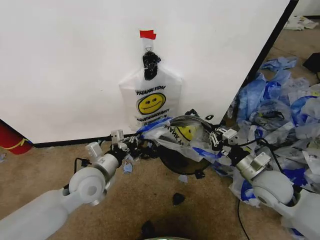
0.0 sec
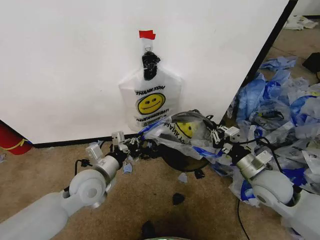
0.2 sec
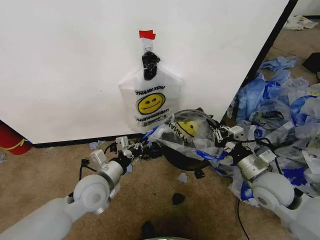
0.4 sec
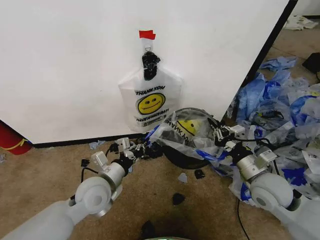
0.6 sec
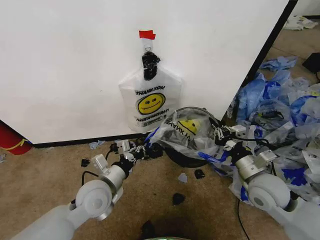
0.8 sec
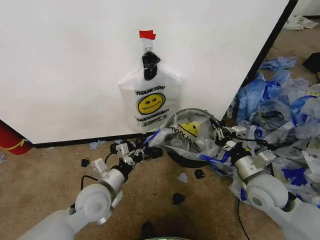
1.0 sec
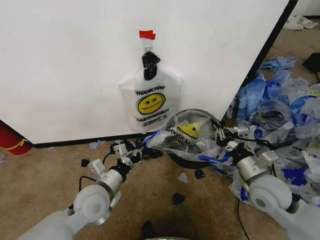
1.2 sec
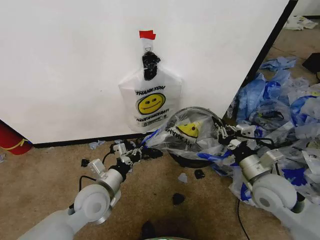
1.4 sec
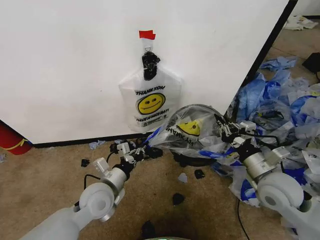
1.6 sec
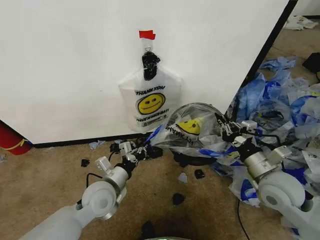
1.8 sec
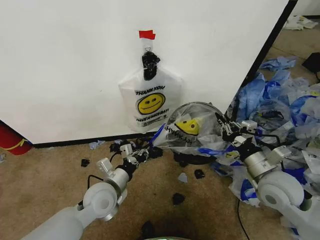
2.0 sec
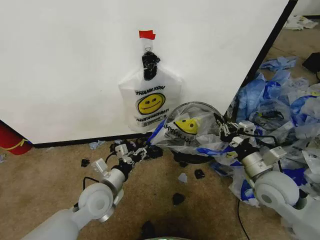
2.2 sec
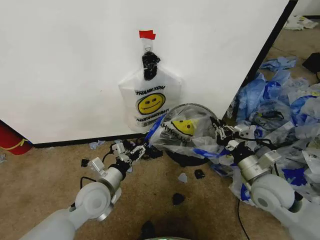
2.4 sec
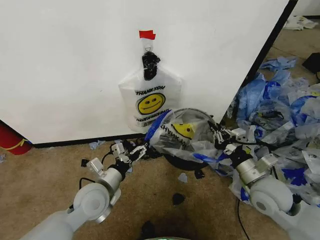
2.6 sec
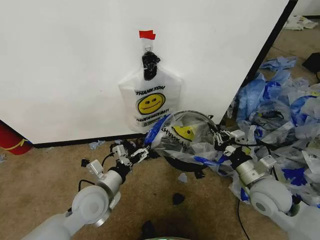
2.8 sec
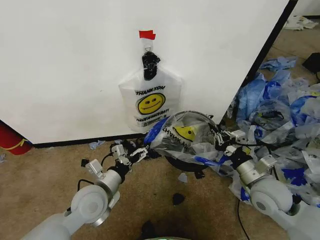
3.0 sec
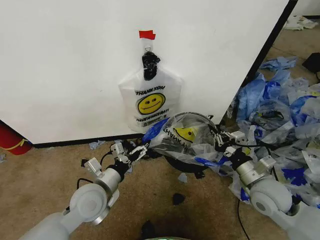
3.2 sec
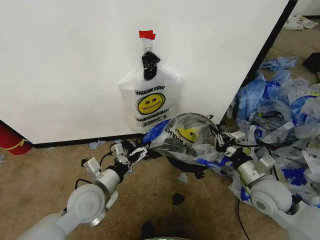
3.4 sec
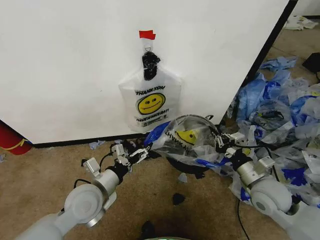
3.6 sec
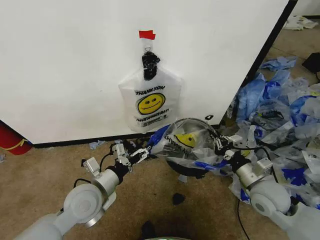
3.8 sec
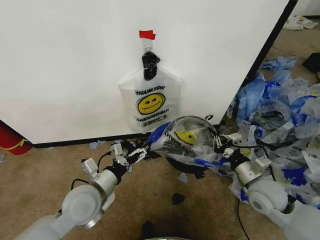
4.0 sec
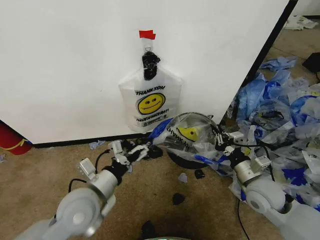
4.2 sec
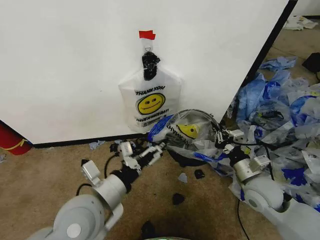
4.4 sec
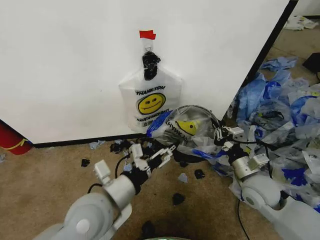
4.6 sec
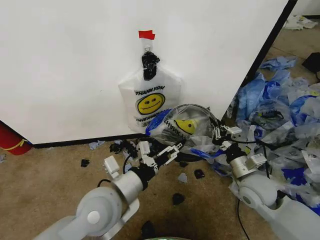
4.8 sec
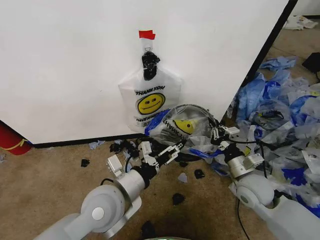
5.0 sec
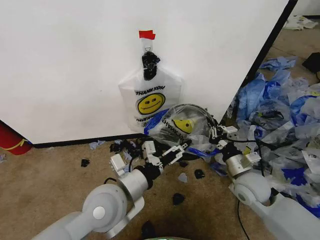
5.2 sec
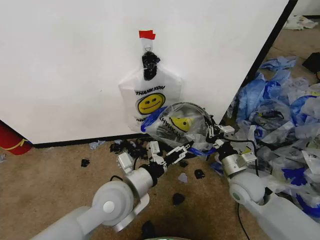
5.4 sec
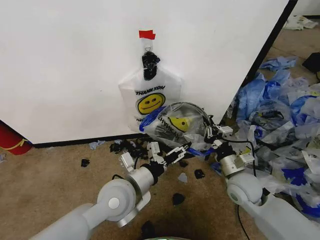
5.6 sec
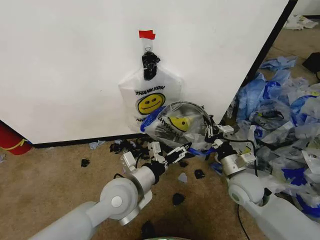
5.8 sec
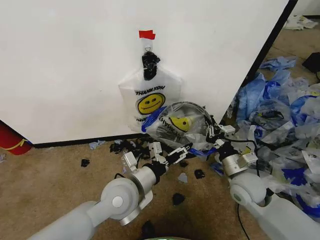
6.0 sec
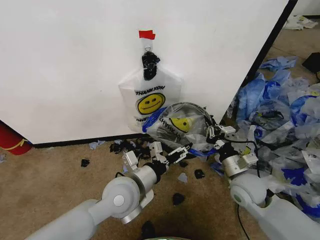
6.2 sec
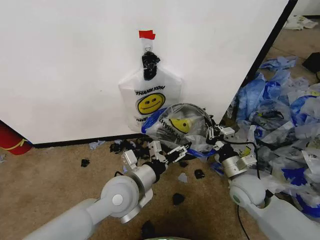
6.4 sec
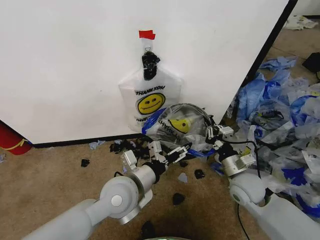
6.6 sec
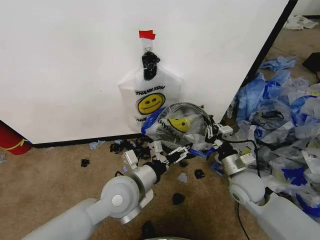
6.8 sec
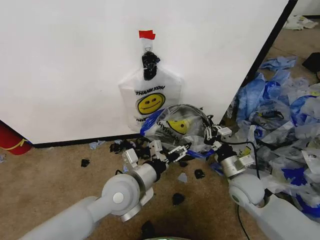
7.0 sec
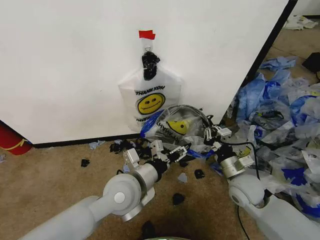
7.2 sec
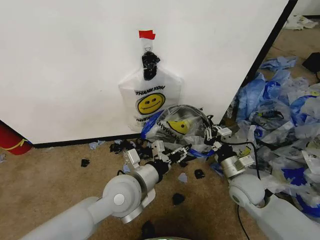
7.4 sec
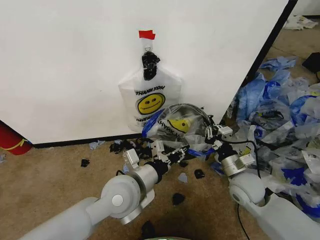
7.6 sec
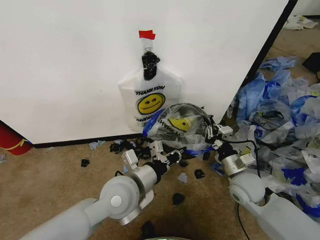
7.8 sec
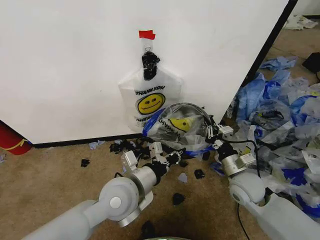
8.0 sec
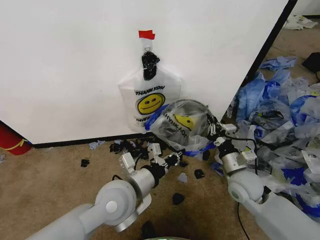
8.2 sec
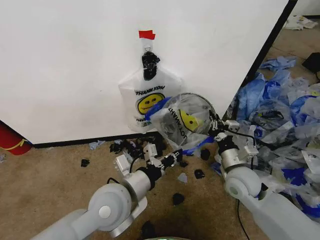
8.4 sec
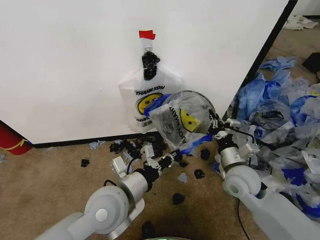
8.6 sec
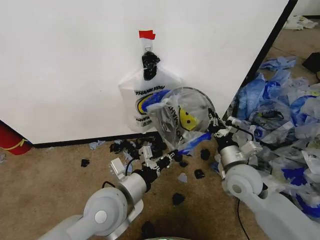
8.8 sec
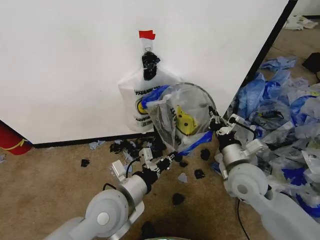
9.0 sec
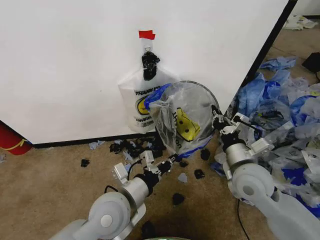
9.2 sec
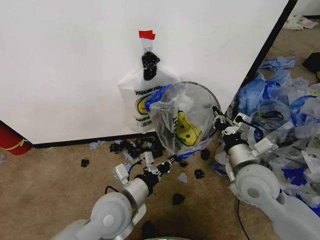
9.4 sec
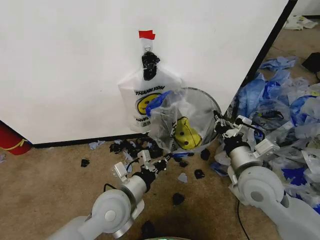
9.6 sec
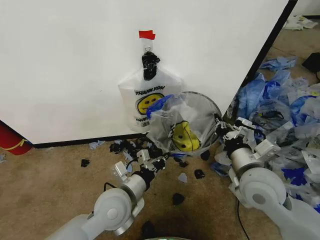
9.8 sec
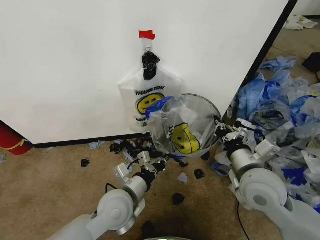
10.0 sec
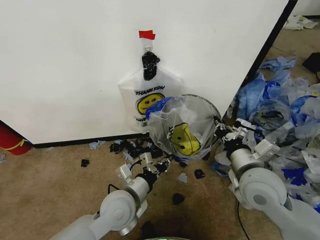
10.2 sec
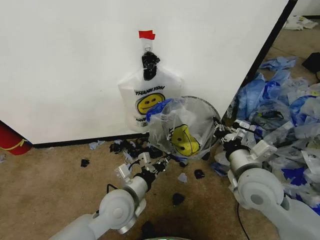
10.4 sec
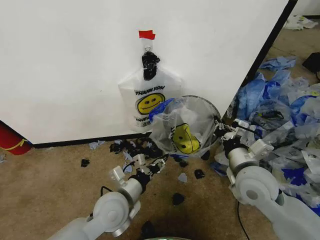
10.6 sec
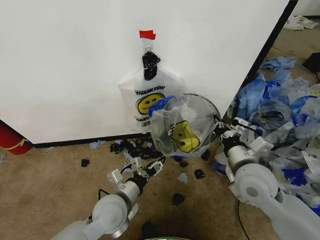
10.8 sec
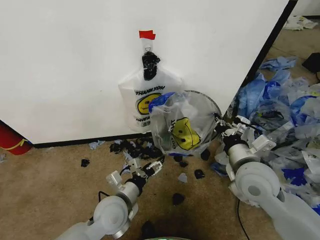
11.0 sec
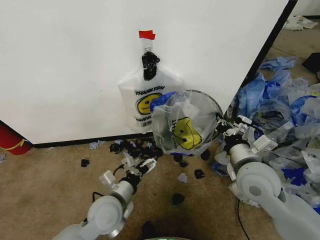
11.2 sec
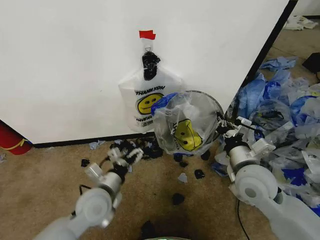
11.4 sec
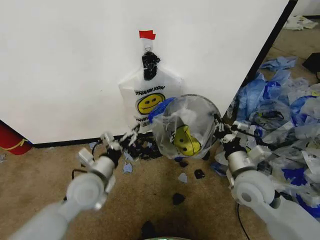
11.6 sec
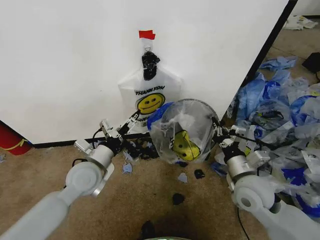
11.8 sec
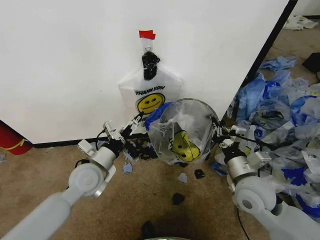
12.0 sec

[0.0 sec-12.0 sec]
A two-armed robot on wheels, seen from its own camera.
Task of the whole recording: Pick up the garbage bag from the wall and place it over the trash bin.
0.0 sec to 1.6 sec: The left gripper goes approximately 5 cm downward.
1.6 sec to 3.0 sec: The left gripper opens.
3.0 sec to 4.4 sec: The left gripper shifts about 10 cm upward and backward.
4.4 sec to 6.0 sec: The left gripper shifts roughly 10 cm to the right and forward.
6.0 sec to 7.6 sec: The left gripper closes.
7.6 sec to 9.0 sec: The right gripper heads upward, covering approximately 5 cm.
9.0 sec to 10.4 sec: The left gripper heads downward, covering approximately 5 cm.
10.4 sec to 12.0 sec: The left gripper heads to the left and forward, covering approximately 10 cm, and opens its fingers. The right gripper changes place by some 5 cm.

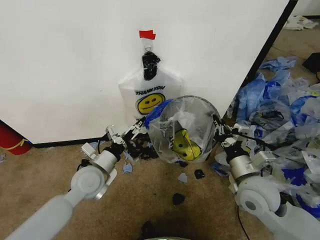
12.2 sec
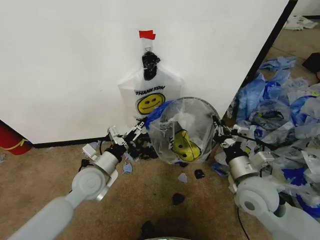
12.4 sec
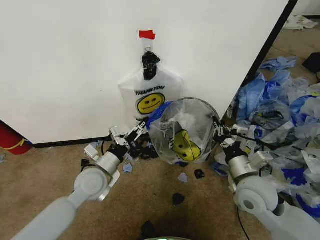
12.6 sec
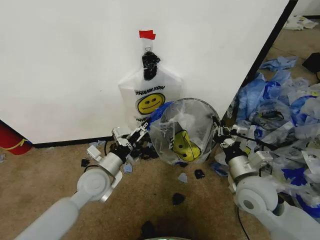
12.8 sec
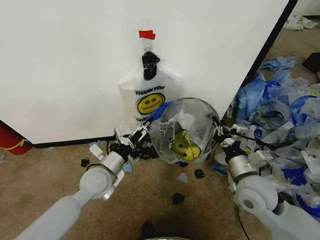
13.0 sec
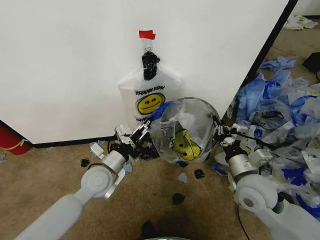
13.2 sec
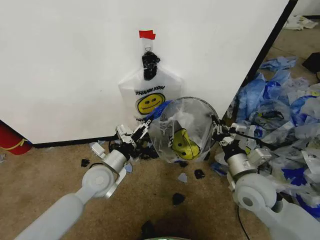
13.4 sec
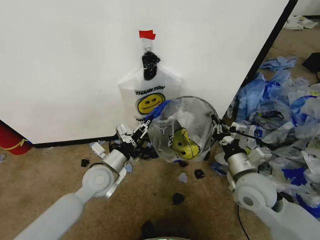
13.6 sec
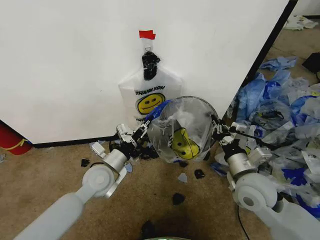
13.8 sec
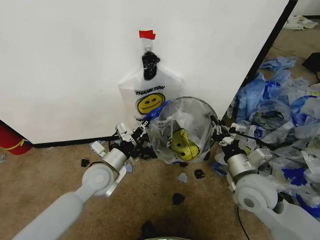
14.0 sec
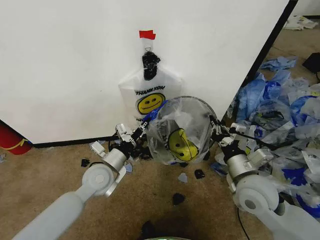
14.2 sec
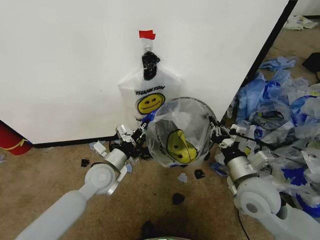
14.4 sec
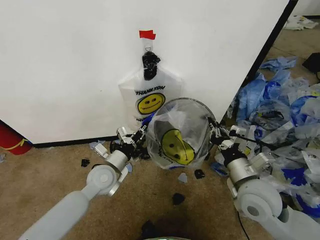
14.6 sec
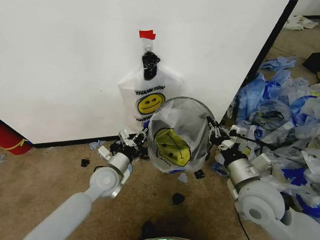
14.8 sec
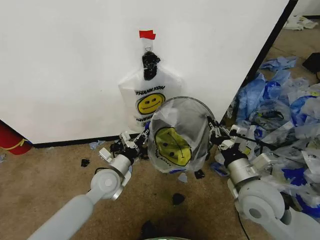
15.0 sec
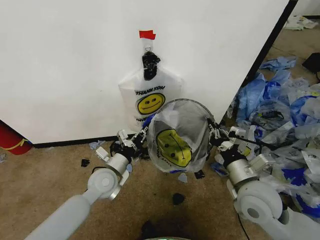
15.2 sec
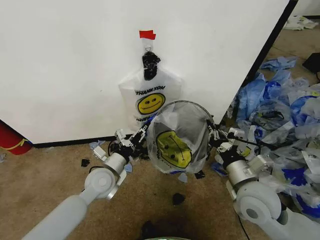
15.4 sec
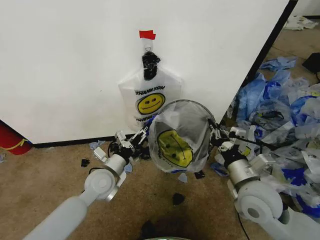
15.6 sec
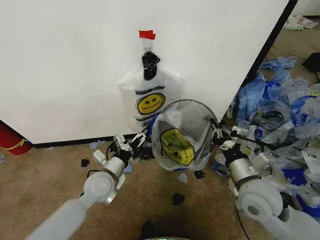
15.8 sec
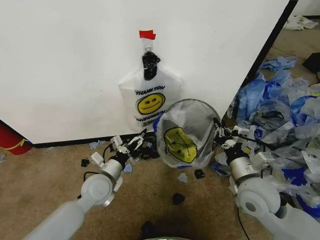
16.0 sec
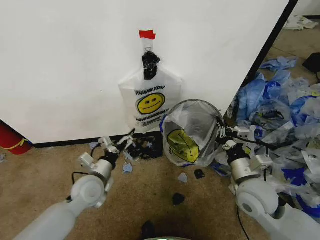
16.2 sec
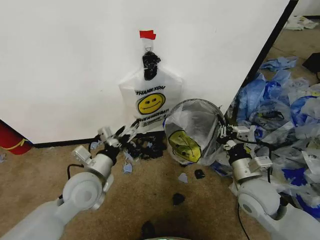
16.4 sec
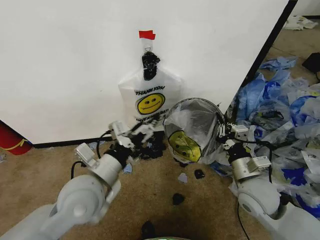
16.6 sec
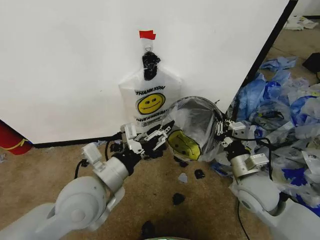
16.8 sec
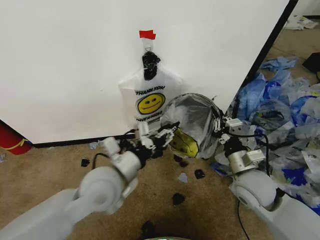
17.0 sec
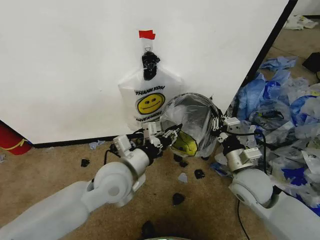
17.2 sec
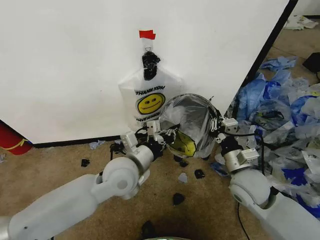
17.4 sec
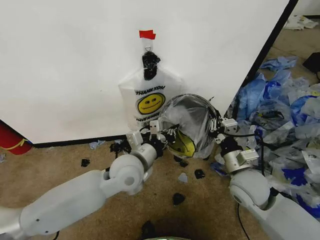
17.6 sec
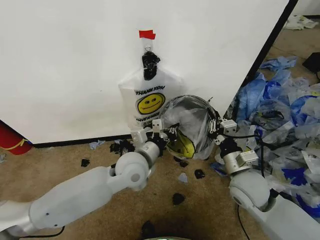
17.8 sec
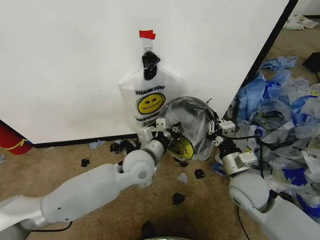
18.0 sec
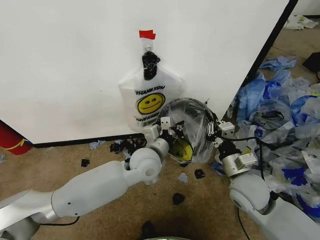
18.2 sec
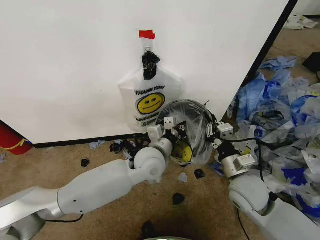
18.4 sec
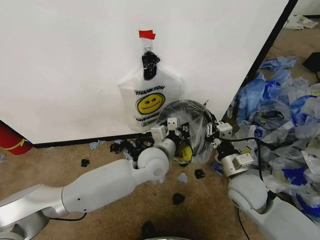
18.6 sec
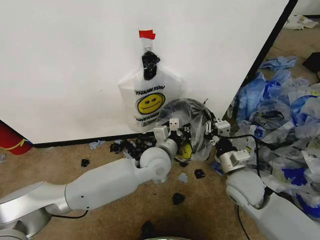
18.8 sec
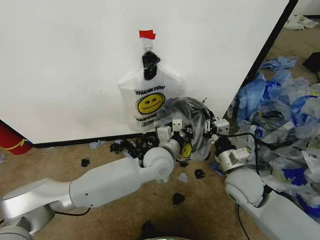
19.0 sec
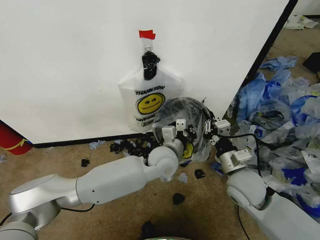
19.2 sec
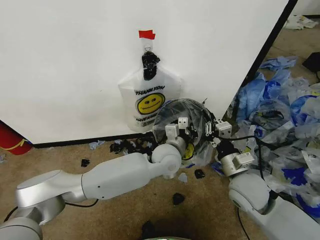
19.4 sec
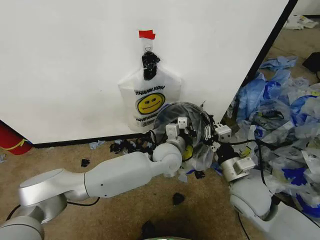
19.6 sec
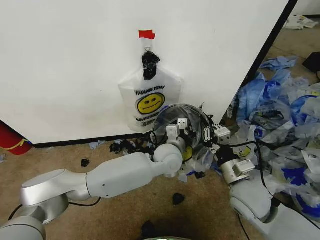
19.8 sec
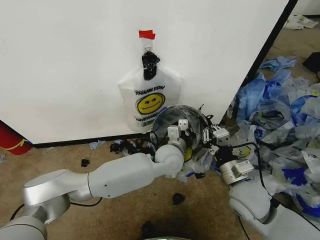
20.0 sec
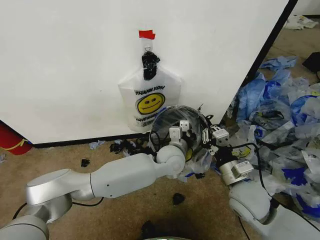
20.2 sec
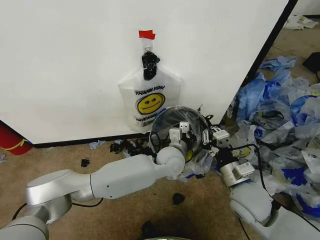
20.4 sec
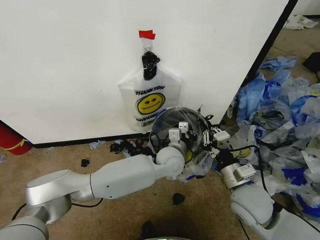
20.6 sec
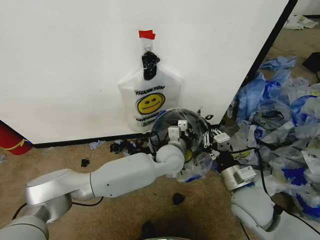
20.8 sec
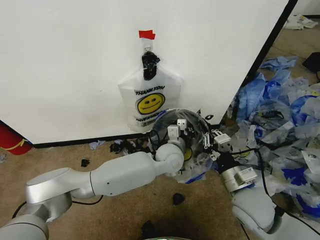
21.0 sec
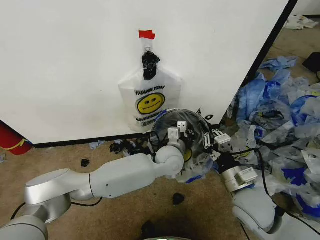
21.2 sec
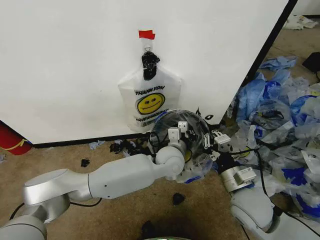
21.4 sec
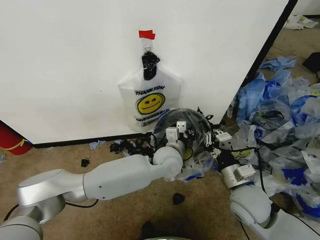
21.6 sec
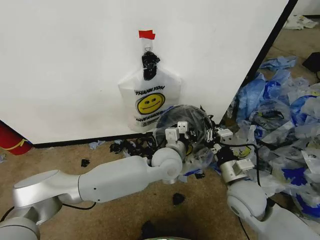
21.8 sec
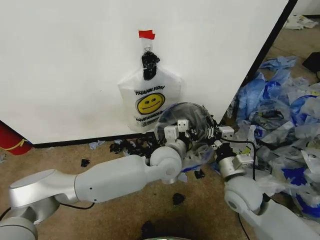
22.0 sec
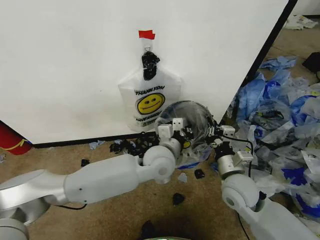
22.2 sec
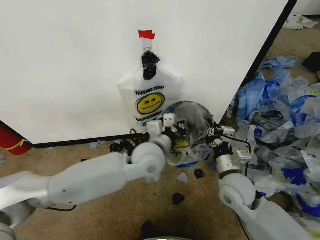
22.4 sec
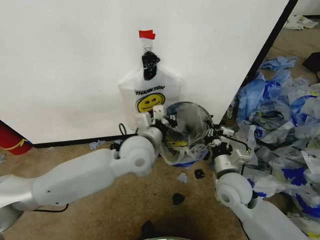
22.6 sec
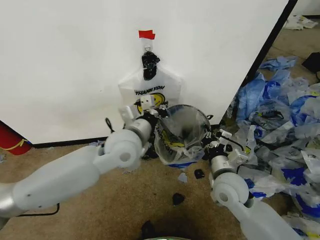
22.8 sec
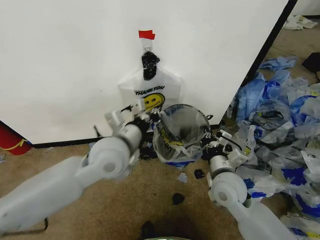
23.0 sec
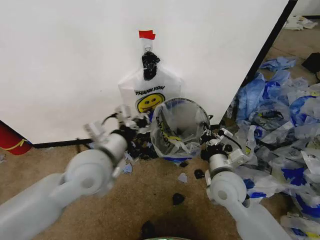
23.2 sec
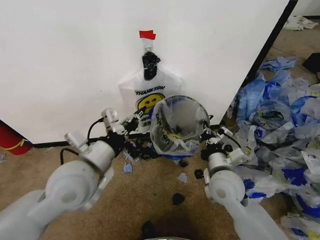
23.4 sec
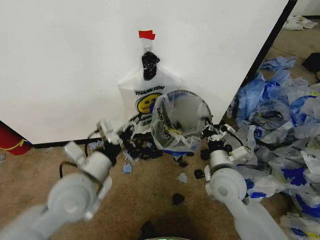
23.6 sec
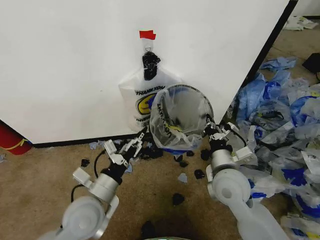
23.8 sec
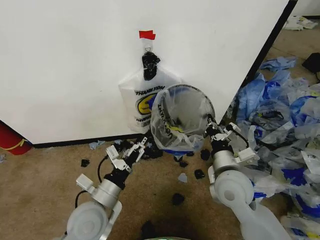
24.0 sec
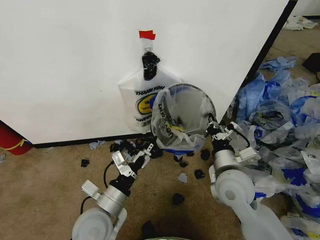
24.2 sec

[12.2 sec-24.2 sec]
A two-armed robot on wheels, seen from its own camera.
Task of the whole recording: Pick up the garbage bag from the wall and place it over the trash bin.
12.2 sec to 13.8 sec: The left gripper closes up.
13.8 sec to 15.2 sec: There are only small adjustments of the grippers.
15.2 sec to 16.6 sec: The left gripper heads upward and backward, covering about 15 cm, and opens up.
16.6 sec to 18.2 sec: The left gripper heads to the right and forward, covering about 15 cm, and closes.
18.2 sec to 19.8 sec: The left gripper goes about 5 cm to the right.
19.8 sec to 21.2 sec: There are only small adjustments of the grippers.
21.2 sec to 22.6 sec: The left gripper heads upward and to the left, covering some 15 cm. Meanwhile the right gripper travels forward by approximately 5 cm.
22.6 sec to 24.2 sec: The left gripper travels backward, downward and to the left by roughly 20 cm, and opens its fingers.
